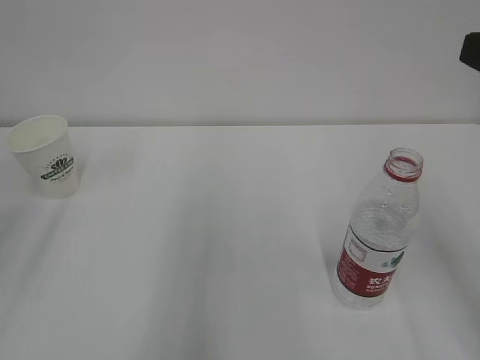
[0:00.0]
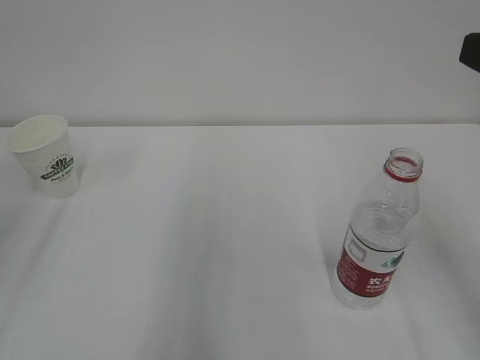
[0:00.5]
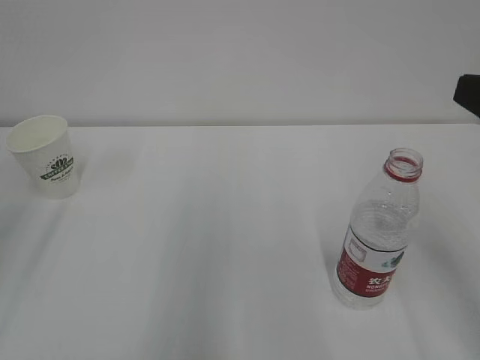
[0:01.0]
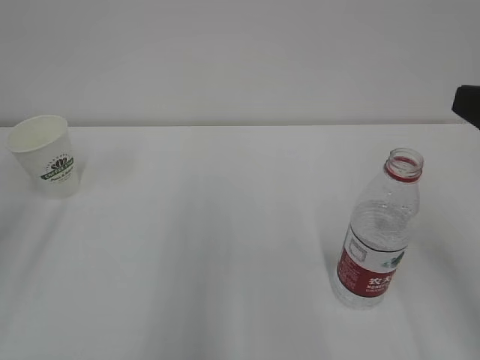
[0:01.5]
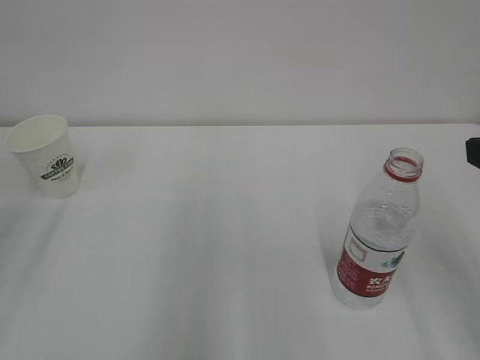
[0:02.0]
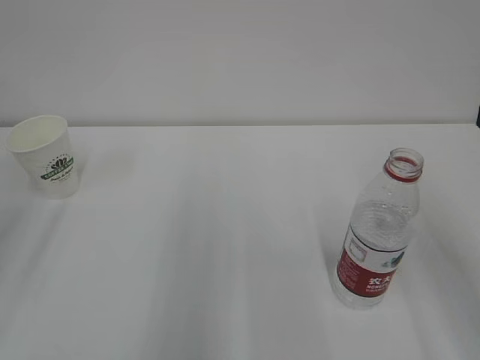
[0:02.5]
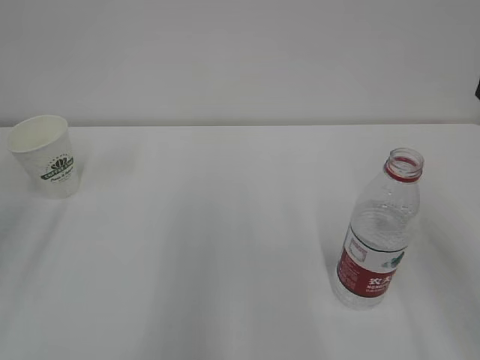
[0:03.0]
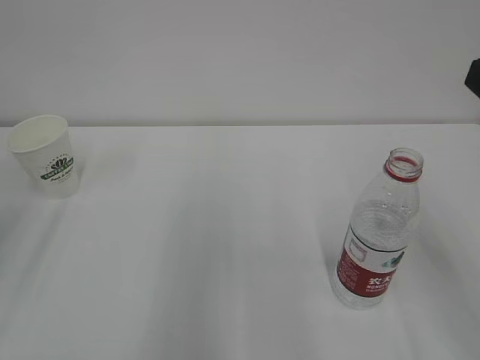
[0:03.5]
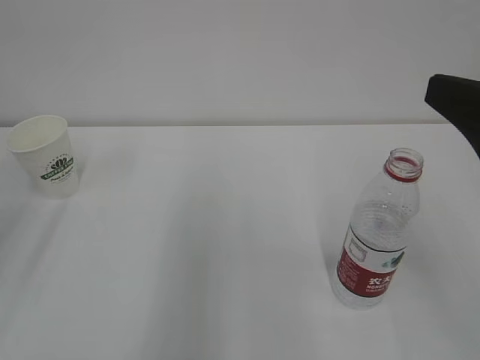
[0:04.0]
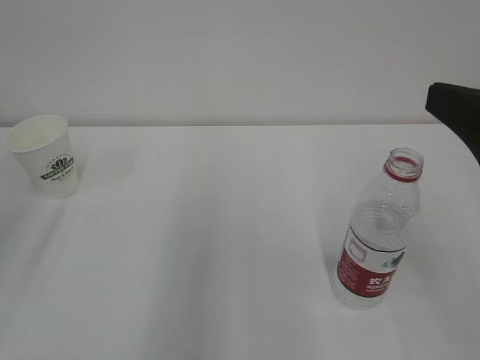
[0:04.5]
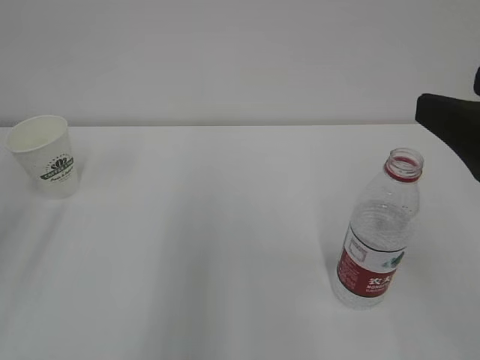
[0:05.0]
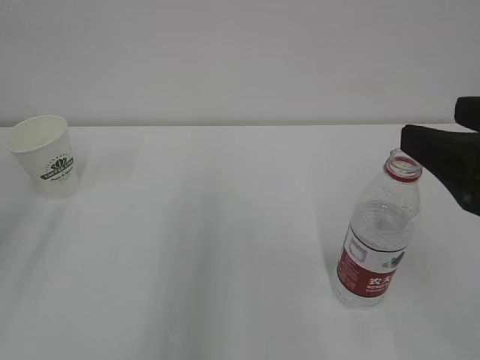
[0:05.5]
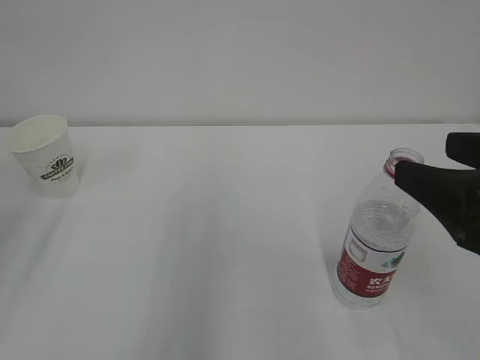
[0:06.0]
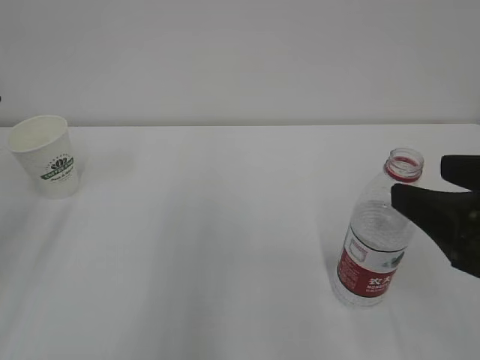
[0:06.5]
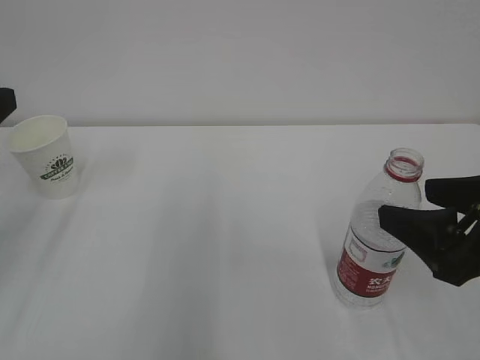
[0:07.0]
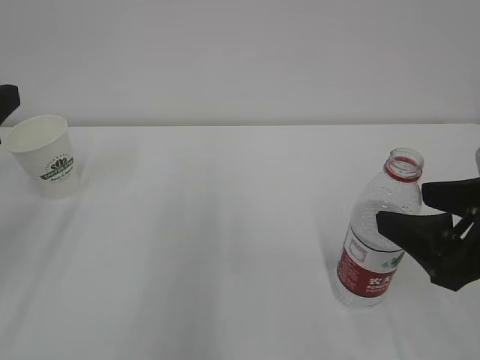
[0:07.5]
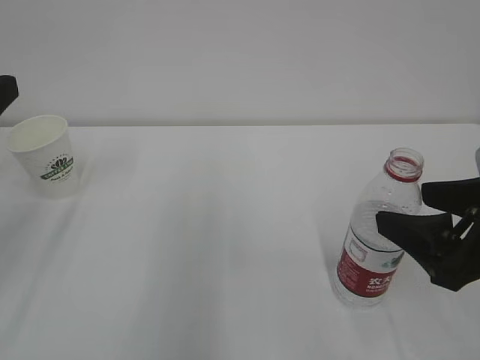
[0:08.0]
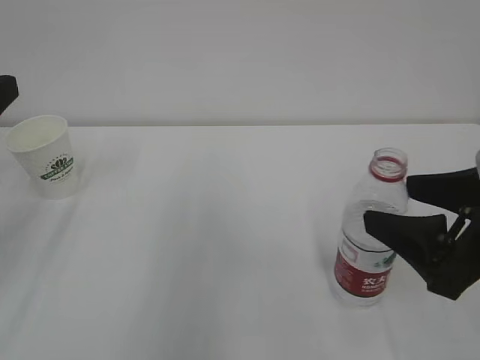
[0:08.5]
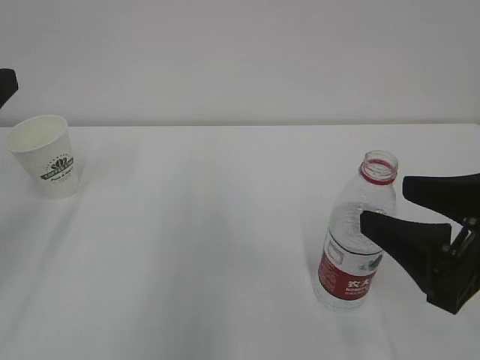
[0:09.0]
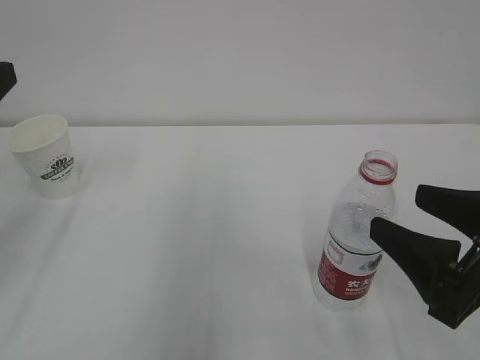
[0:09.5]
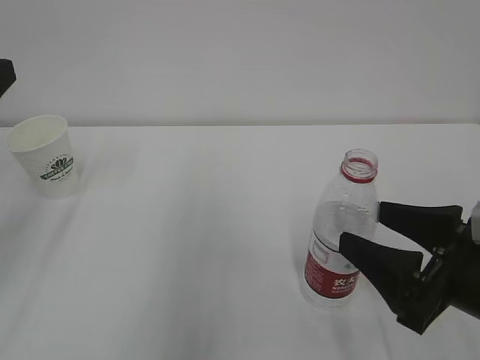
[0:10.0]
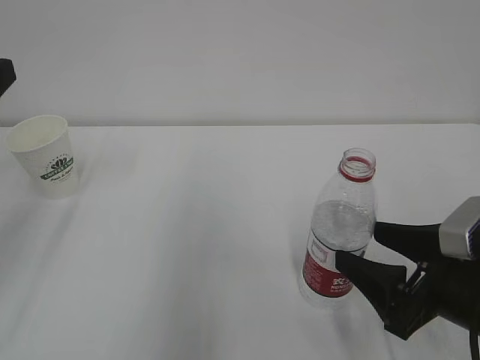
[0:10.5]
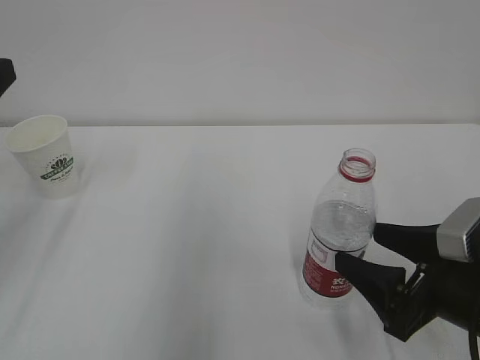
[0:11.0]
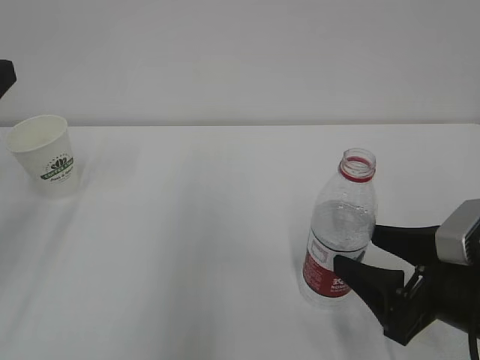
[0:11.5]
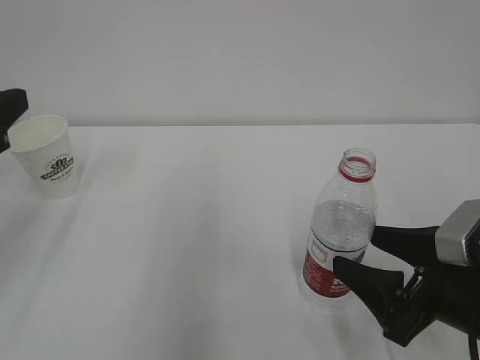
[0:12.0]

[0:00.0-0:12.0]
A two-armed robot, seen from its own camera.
0:04.0 to 0:06.0: The grippers move only a little.
0:06.0 to 0:08.0: The grippers move only a little.
0:08.0 to 0:10.0: The right gripper moves downward, approximately 5 cm.
0:10.0 to 0:12.0: There are only small adjustments of the grippers.

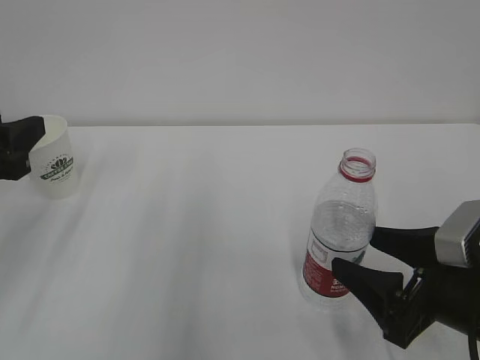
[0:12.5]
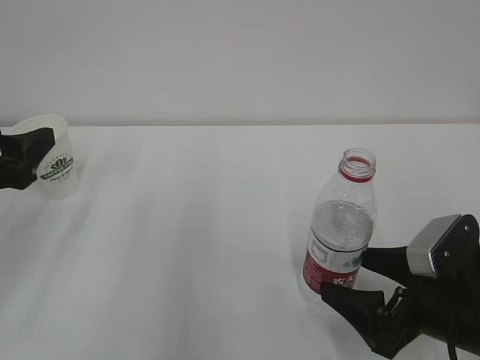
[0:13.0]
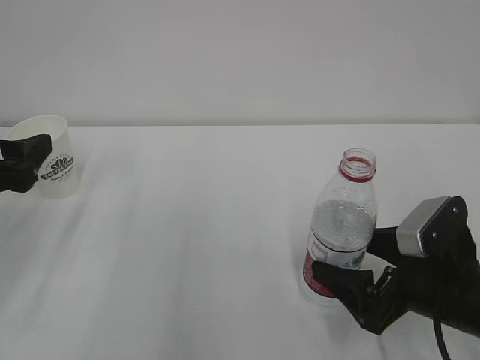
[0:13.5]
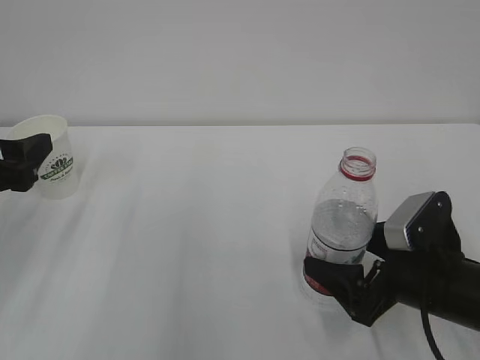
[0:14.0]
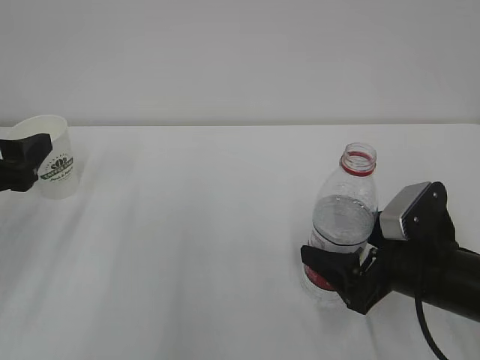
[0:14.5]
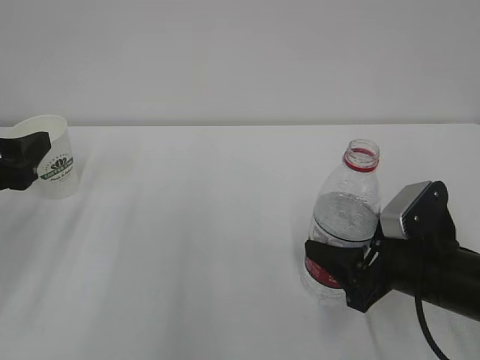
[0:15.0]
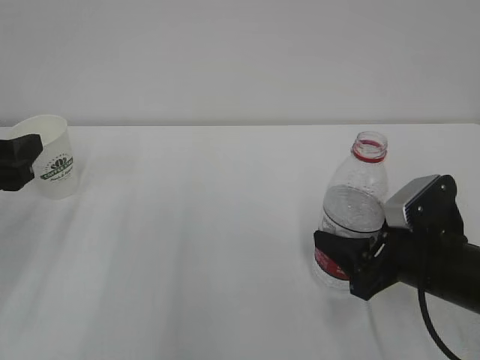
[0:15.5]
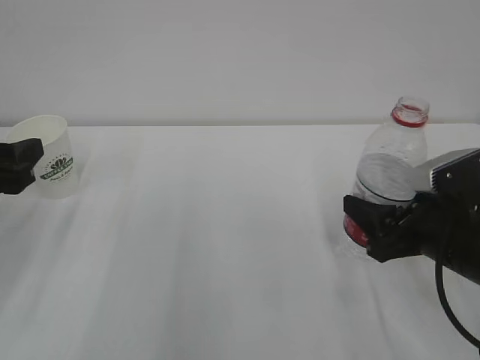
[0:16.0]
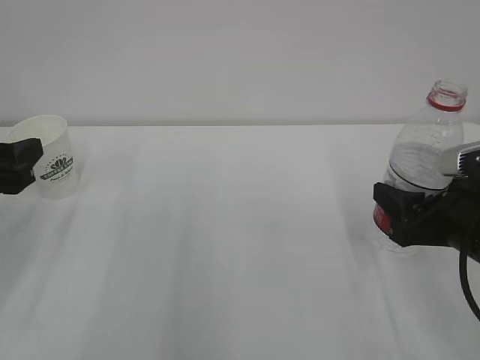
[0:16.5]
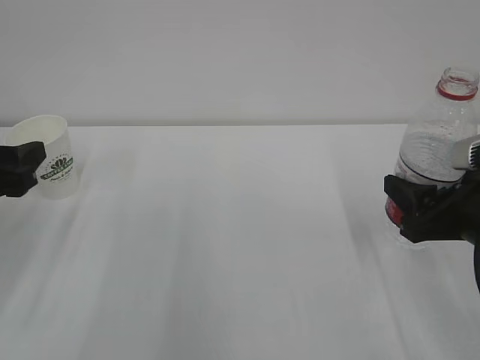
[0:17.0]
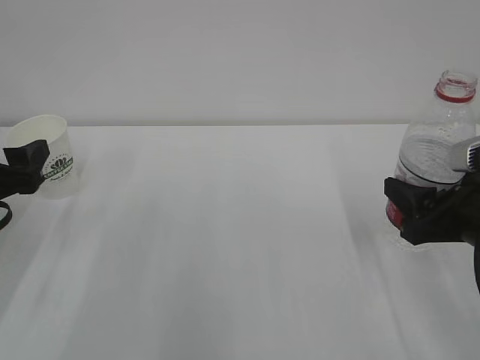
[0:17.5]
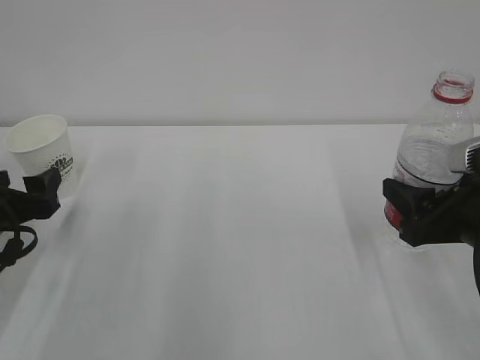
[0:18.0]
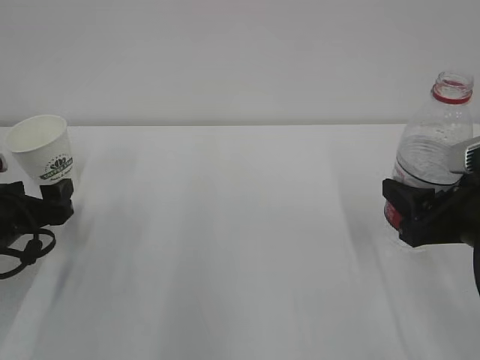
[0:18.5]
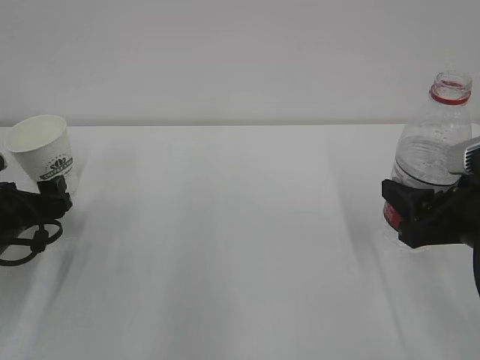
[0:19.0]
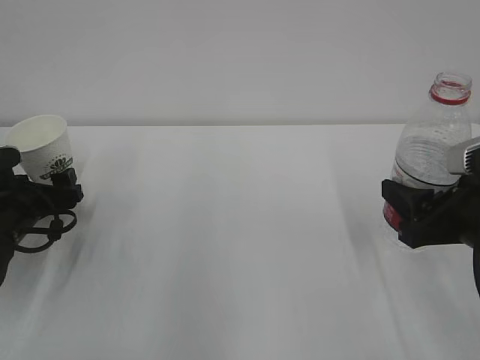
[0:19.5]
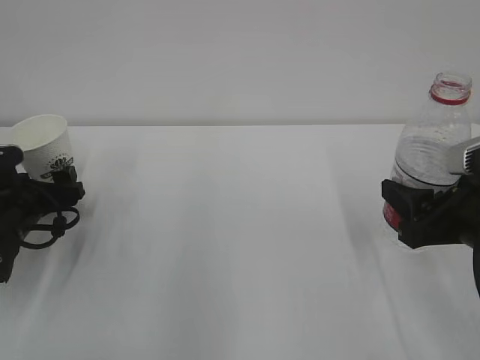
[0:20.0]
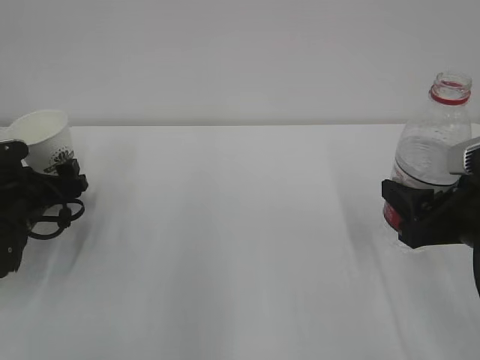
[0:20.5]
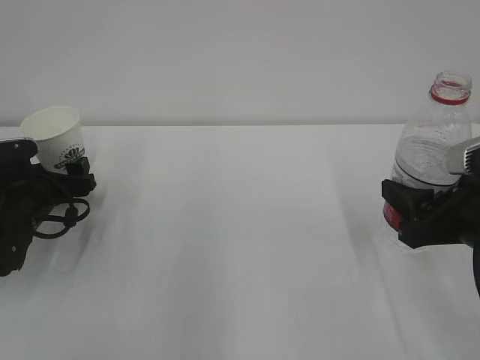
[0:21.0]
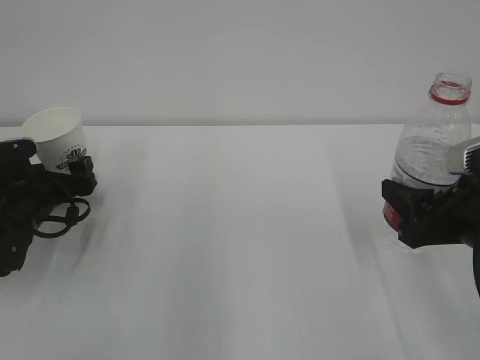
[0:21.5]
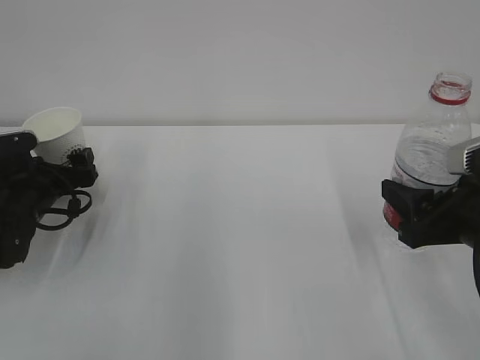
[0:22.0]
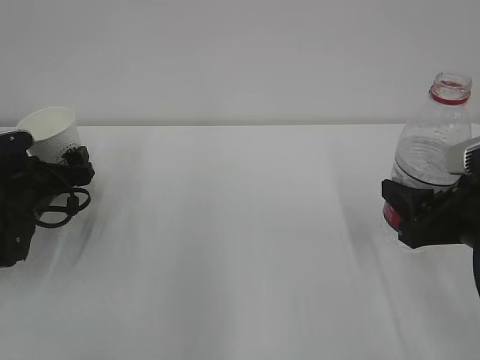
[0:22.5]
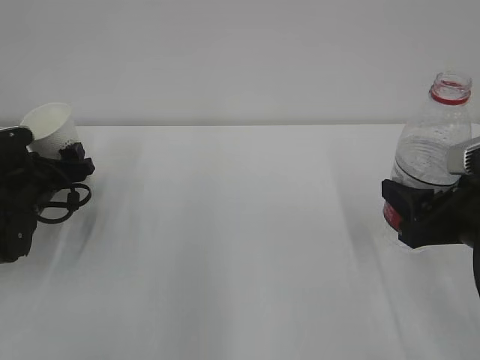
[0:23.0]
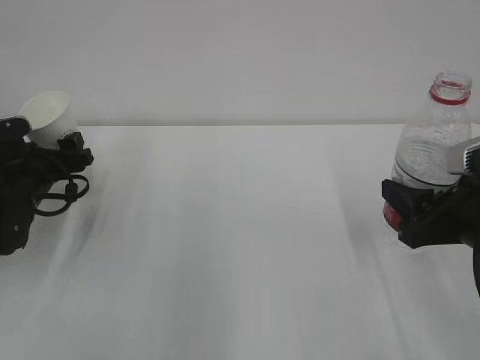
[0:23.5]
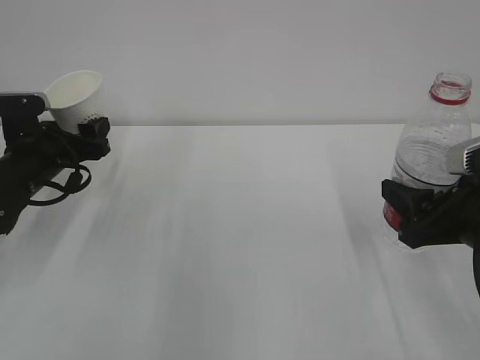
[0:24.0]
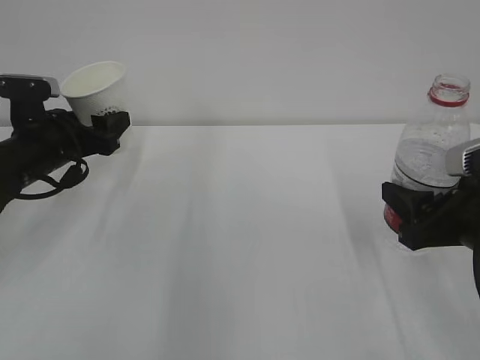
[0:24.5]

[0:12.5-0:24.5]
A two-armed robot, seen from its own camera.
0:12.5 to 0:14.5: The right gripper goes some 5 cm forward; the left gripper opens.
0:14.5 to 0:16.5: The left gripper closes. The right gripper travels upward by approximately 5 cm, and closes its fingers.
0:16.5 to 0:18.5: The left gripper shifts approximately 10 cm downward, and opens up.
0:18.5 to 0:20.5: The left gripper travels forward by some 5 cm.
0:20.5 to 0:22.5: The grippers make only small movements.
0:22.5 to 0:24.5: The left gripper is displaced upward by roughly 10 cm, and closes its fingers.

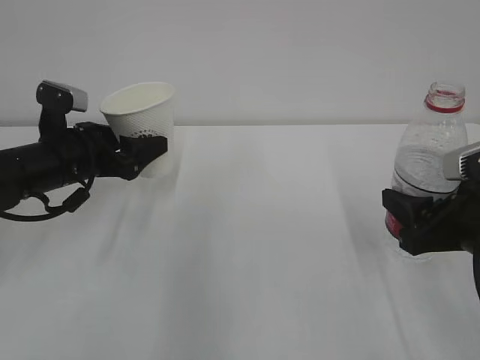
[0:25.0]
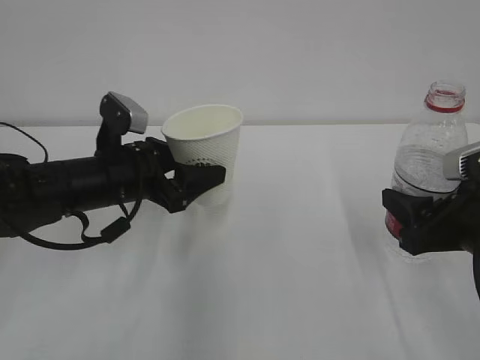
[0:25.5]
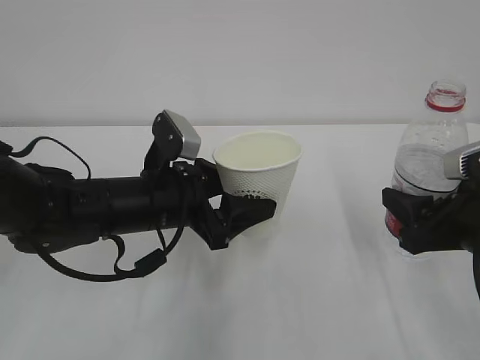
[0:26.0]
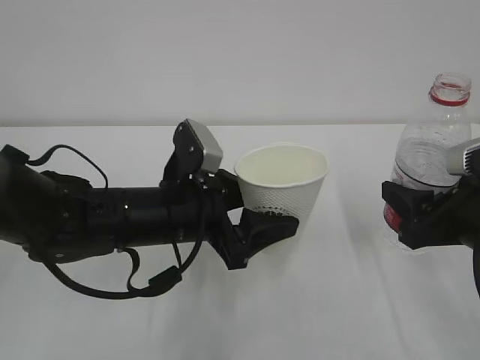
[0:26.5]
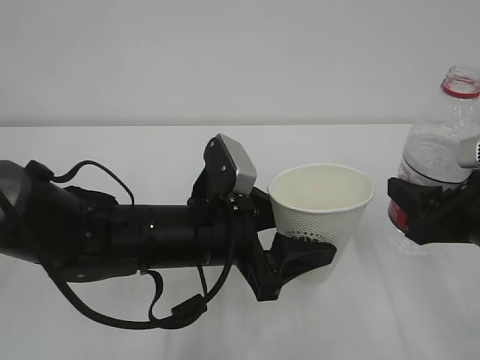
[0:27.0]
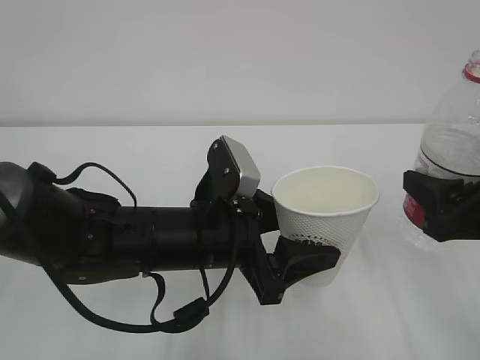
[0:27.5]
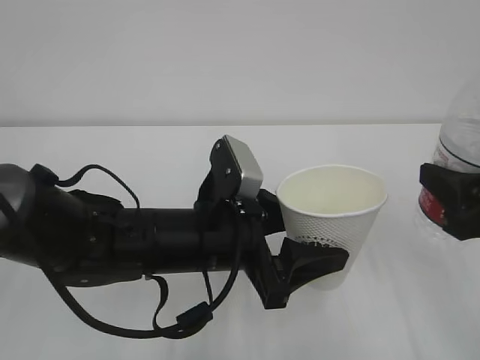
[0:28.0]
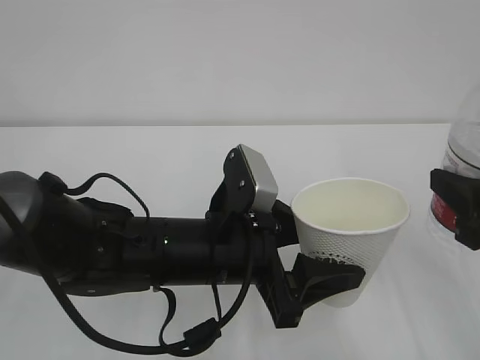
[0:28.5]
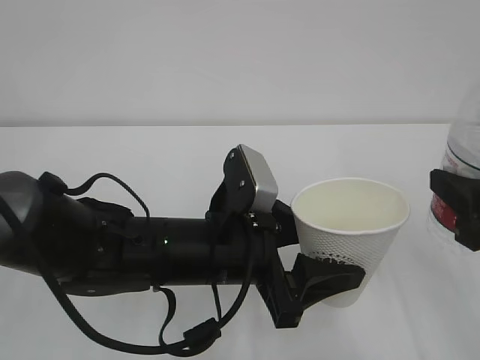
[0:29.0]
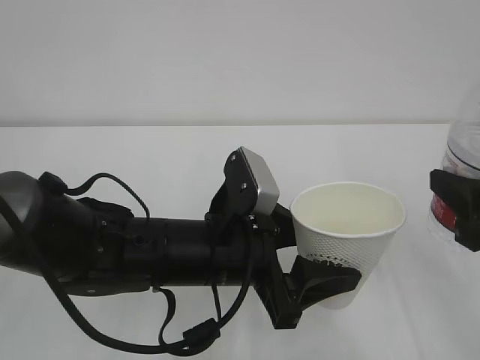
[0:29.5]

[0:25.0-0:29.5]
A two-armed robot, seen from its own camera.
0:25.0 to 0:27.0: The left gripper shifts roughly 20 cm to the right and backward.
0:27.0 to 0:29.5: The right gripper changes place by some 5 cm.
